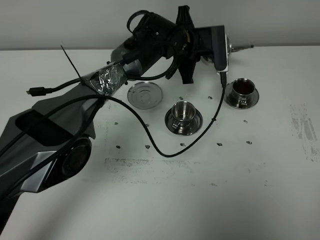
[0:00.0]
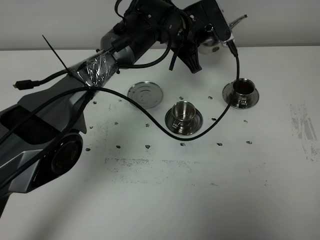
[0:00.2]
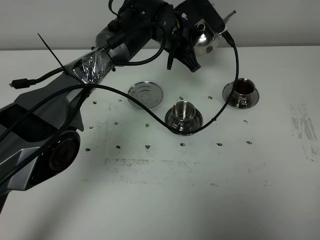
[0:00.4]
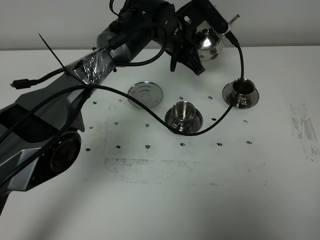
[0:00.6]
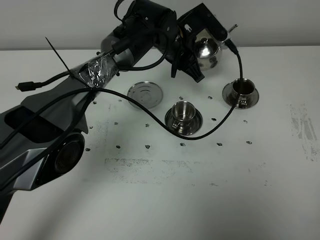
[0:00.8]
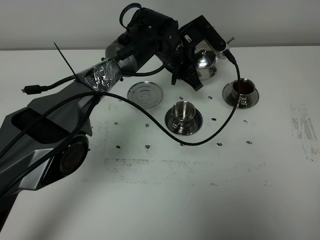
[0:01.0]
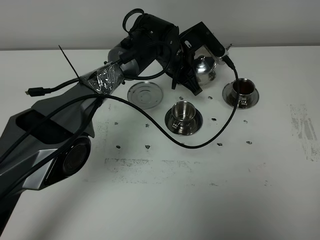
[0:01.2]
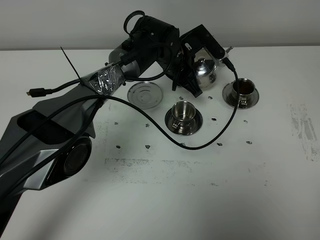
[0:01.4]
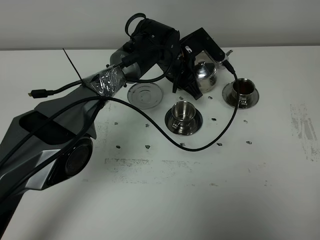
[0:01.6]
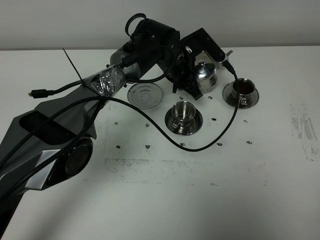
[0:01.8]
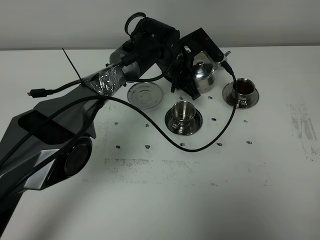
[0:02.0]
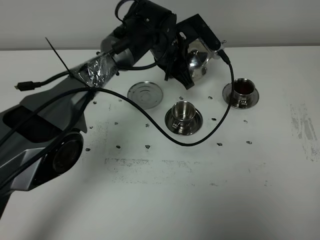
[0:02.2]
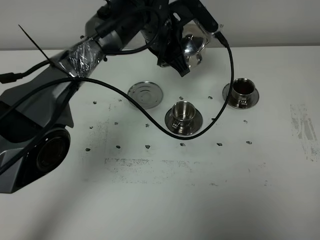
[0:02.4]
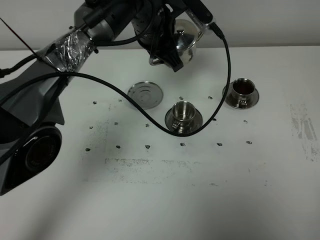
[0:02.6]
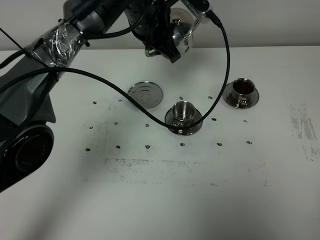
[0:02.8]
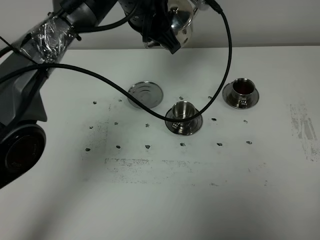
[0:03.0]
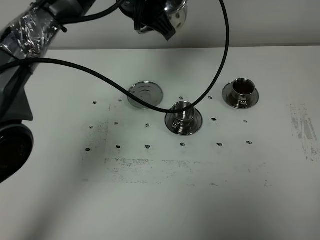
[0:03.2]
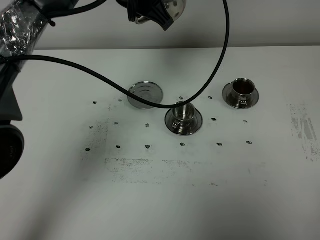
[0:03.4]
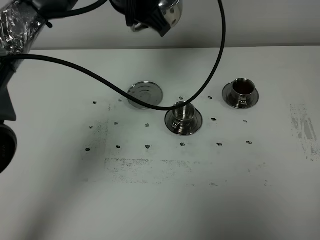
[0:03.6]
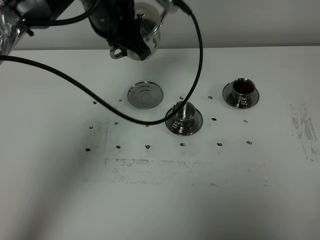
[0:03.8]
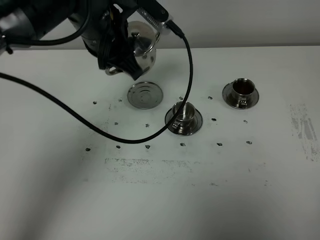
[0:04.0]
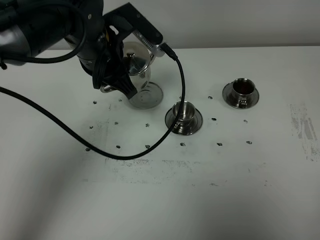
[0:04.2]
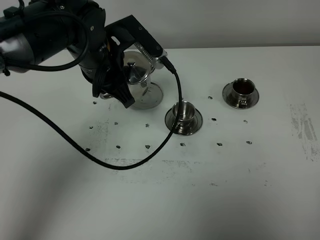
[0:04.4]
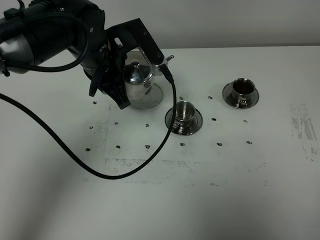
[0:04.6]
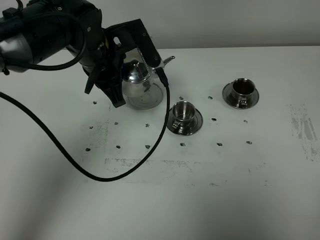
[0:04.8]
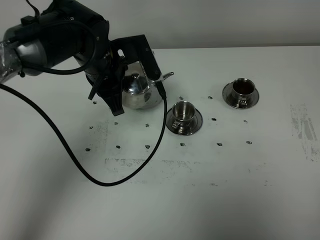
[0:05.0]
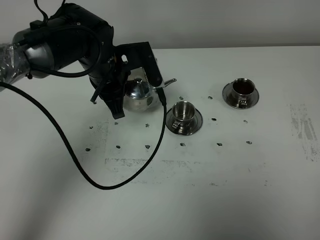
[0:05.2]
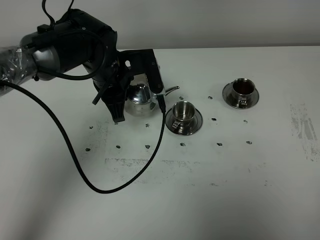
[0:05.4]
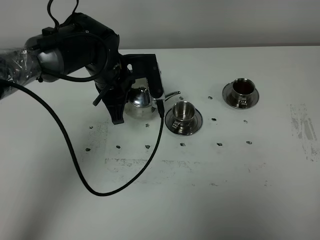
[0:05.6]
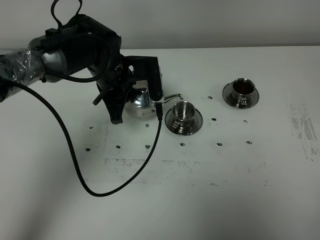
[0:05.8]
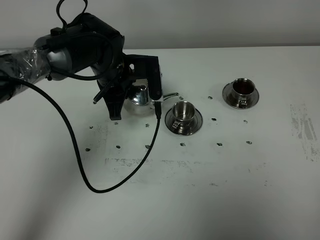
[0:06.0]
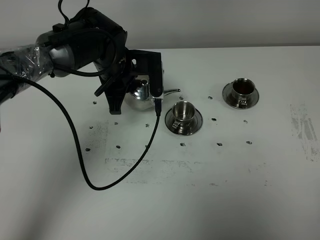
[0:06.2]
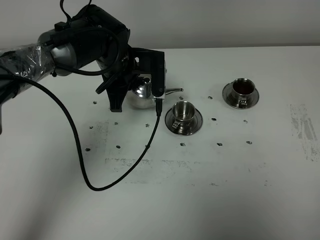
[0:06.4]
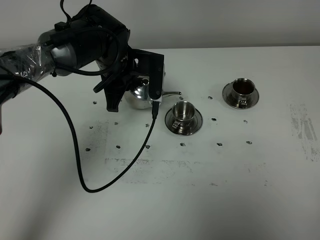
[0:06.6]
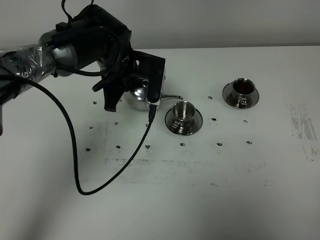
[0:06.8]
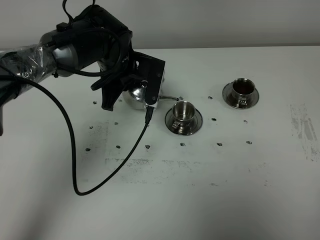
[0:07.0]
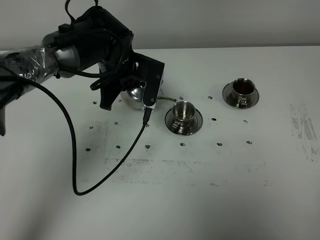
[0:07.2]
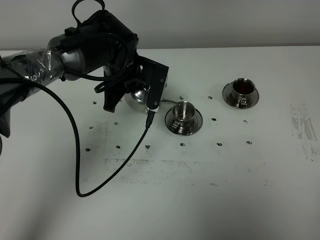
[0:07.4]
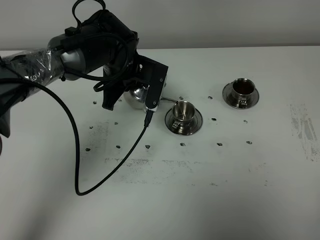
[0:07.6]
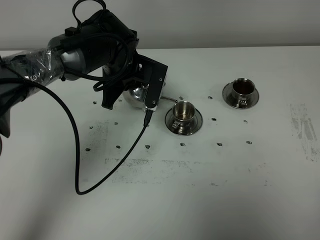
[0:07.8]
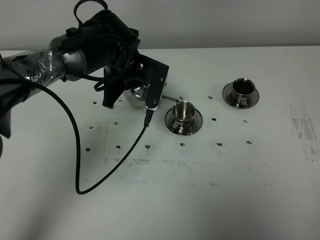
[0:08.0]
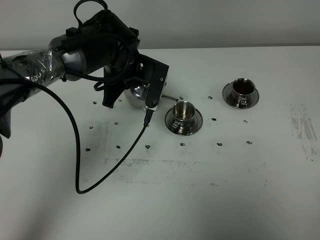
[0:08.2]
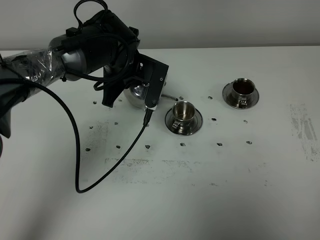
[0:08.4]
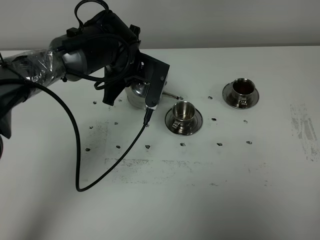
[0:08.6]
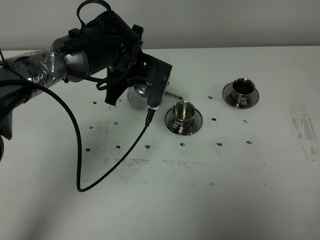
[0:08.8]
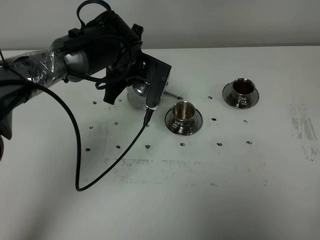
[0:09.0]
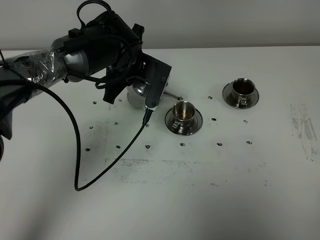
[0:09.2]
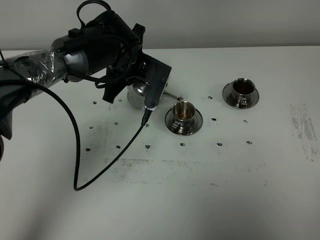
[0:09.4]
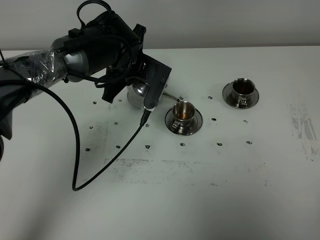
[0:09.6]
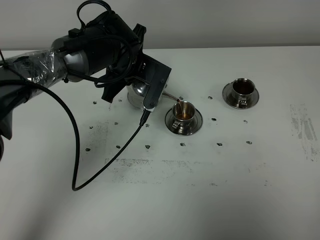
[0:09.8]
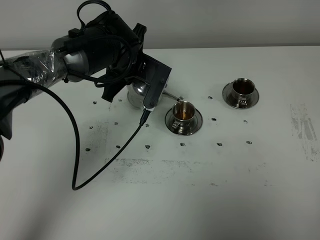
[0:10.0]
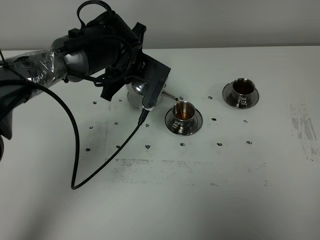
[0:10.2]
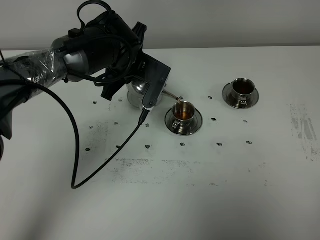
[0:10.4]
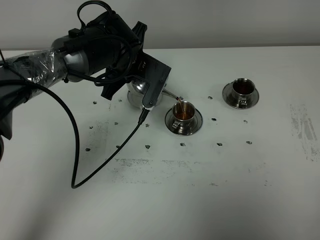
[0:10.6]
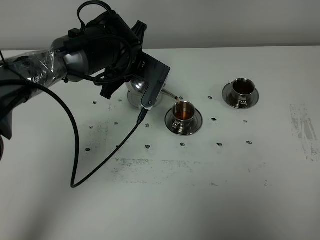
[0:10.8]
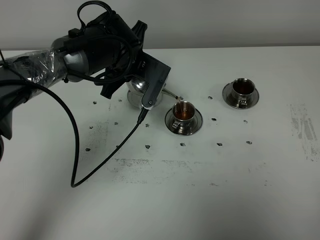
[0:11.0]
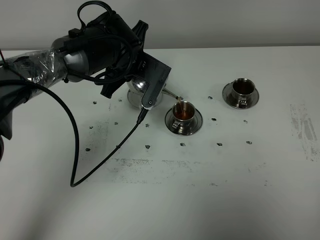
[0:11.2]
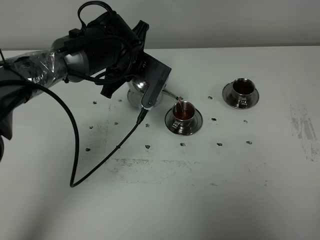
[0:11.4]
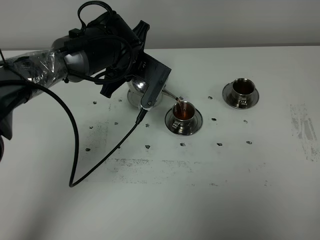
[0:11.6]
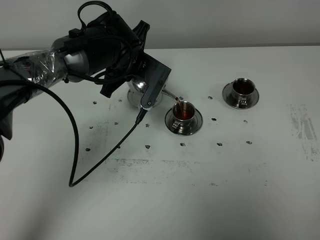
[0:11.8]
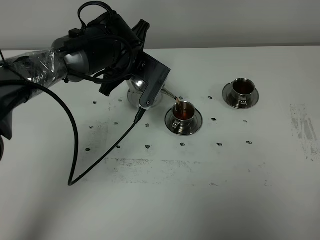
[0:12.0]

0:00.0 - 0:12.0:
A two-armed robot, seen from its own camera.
Task of the whole recording: grasp the stainless steel teapot and pour the tea into the two stainless steel teacups one by one, put the stainless steel teapot back in its original place.
0:01.6 - 0:03.0: The left gripper moves upward, approximately 15 cm.
0:03.0 - 0:04.4: The left gripper goes about 10 cm to the left, backward and downward.
0:04.4 - 0:06.0: The left gripper moves downward, about 5 cm.
0:07.6 - 0:12.0: The grippers make only small movements.

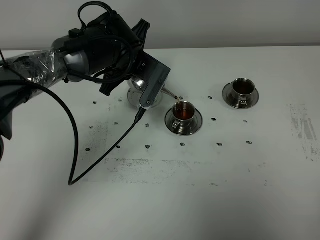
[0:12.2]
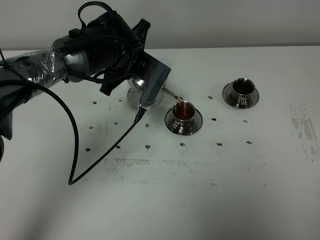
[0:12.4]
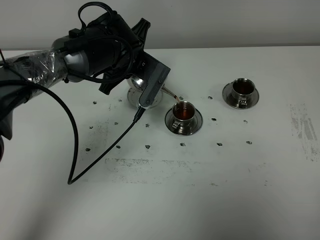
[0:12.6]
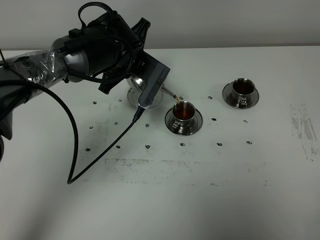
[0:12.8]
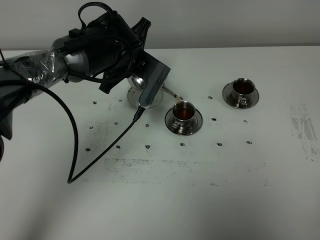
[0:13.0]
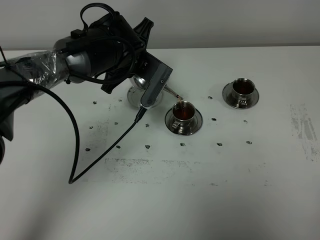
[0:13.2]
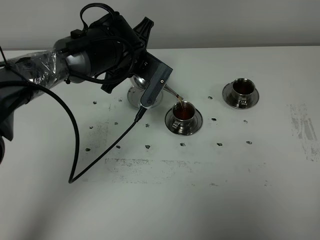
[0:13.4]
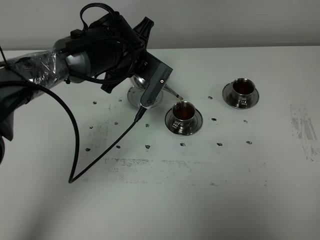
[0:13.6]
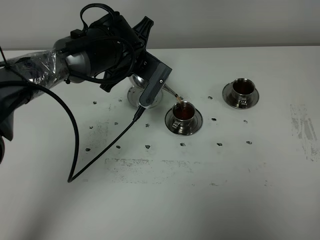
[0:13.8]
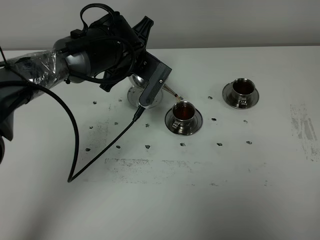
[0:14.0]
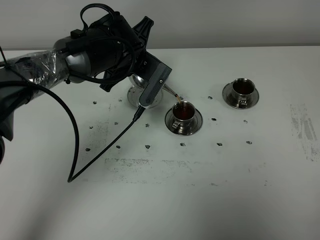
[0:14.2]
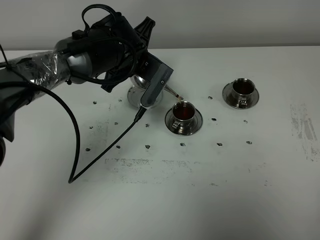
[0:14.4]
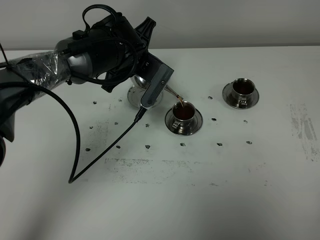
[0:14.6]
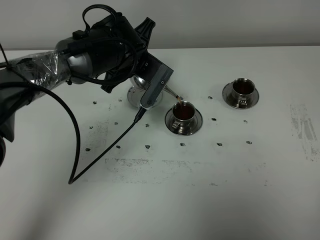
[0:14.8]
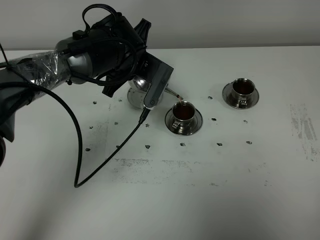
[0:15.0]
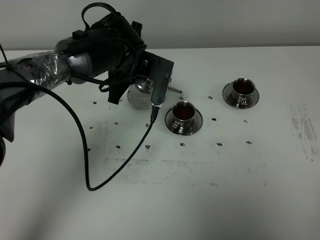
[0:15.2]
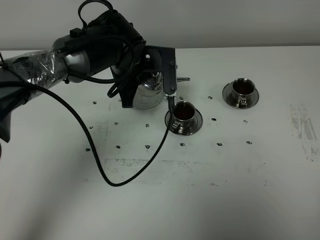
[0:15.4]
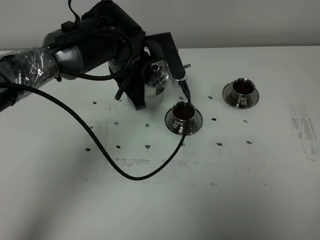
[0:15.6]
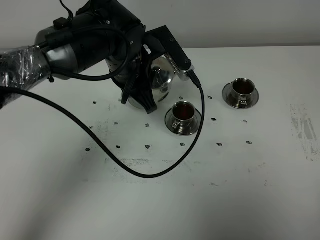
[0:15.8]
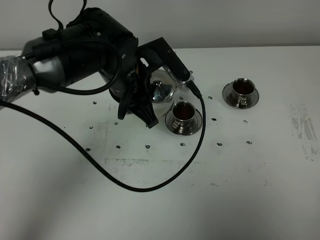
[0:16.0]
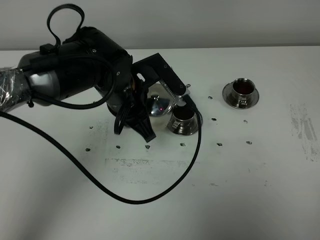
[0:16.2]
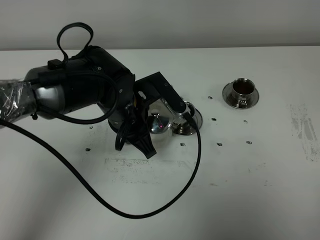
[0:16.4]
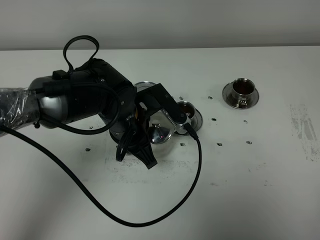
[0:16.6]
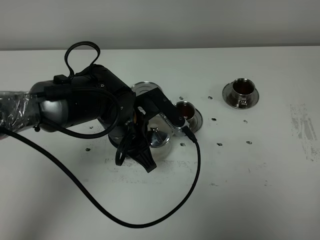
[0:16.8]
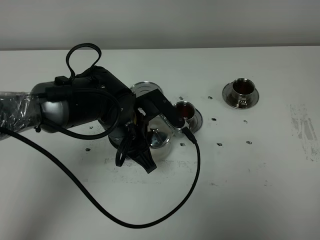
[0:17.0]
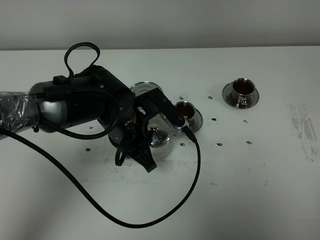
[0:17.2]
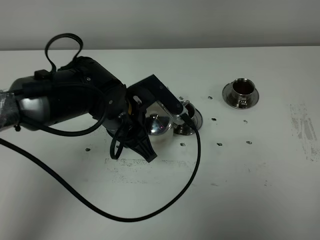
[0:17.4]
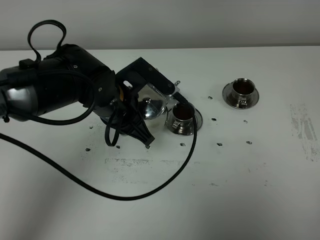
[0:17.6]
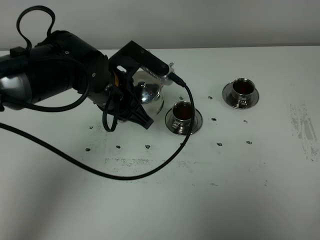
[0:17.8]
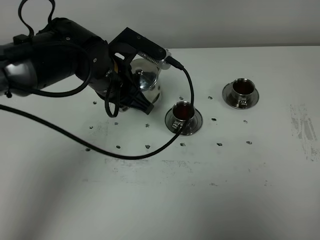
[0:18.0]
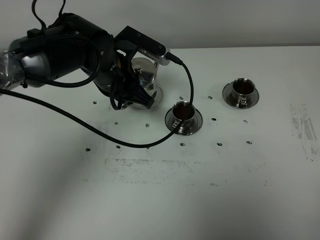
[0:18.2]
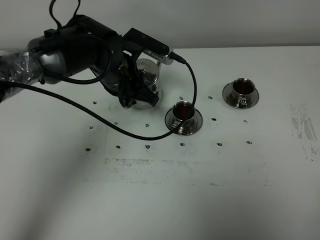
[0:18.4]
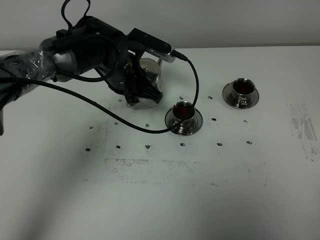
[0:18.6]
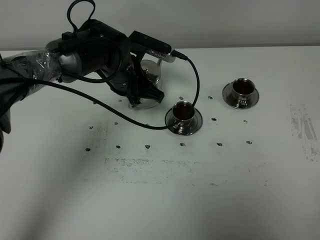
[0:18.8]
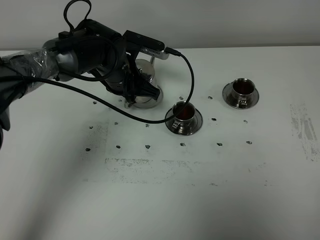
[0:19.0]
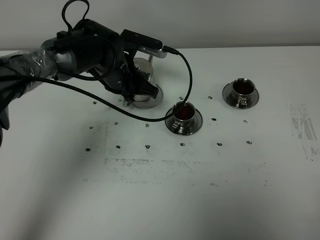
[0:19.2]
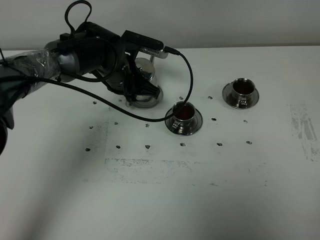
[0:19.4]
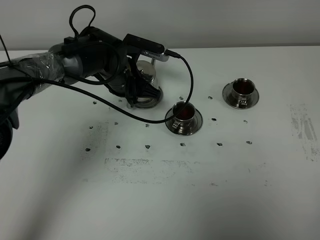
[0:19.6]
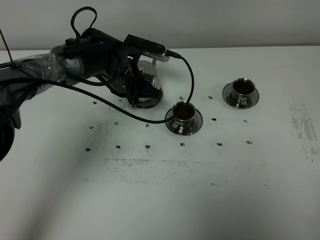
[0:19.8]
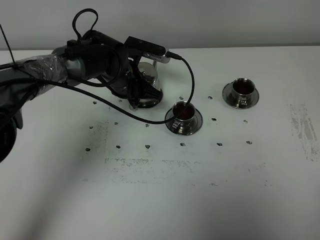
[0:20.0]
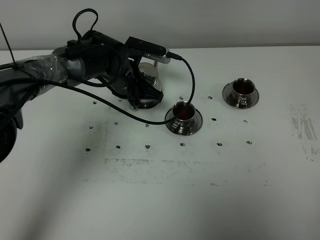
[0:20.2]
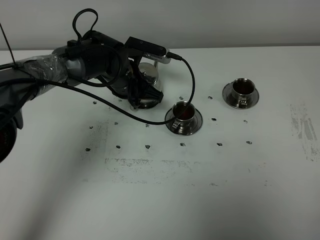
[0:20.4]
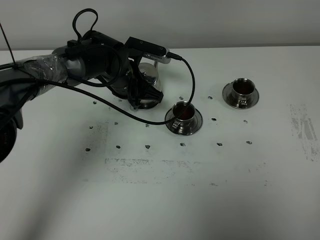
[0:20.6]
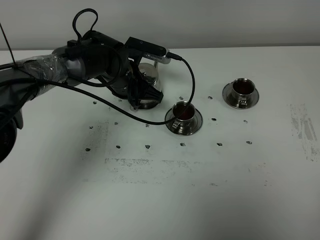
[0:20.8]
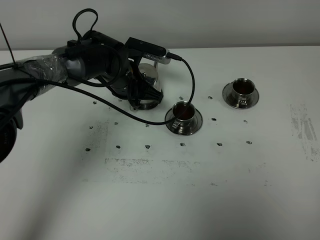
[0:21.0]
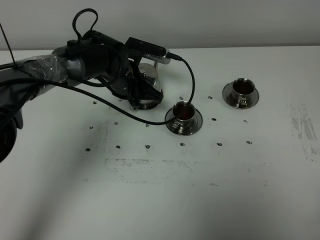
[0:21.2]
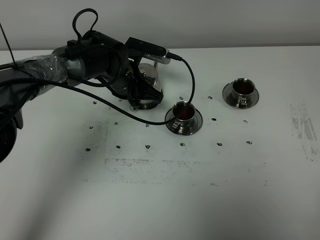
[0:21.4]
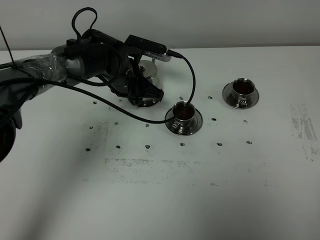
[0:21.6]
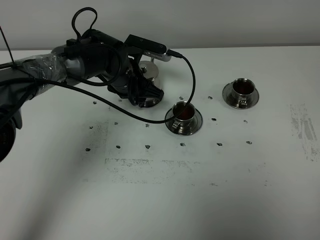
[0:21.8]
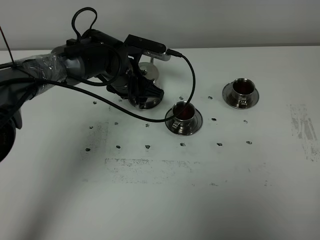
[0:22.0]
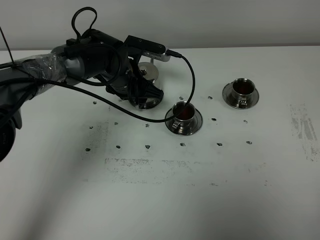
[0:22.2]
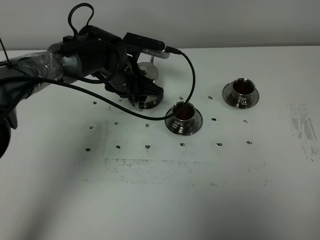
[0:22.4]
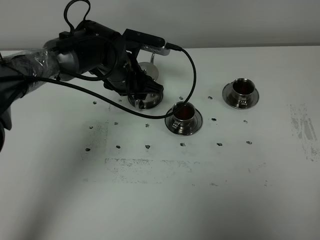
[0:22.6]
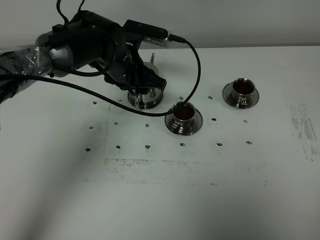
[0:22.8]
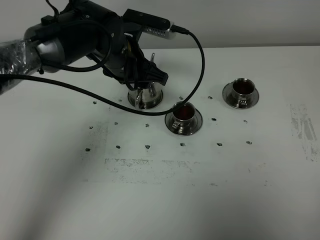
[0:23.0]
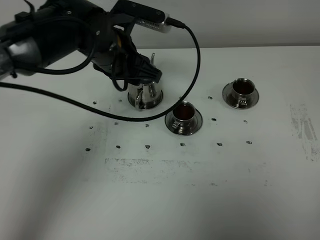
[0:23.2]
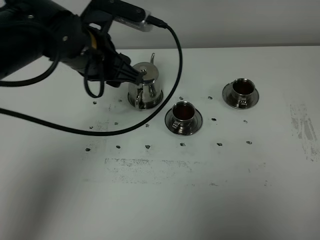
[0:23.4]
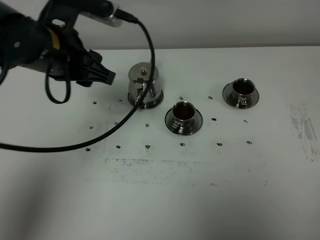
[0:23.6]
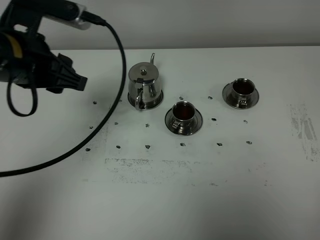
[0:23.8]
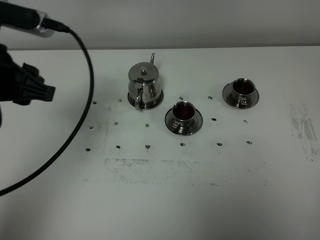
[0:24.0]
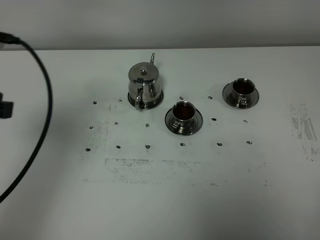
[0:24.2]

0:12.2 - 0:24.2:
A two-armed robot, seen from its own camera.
Task of the whole recording: grasp the stainless steel teapot and pour the tea into the two stainless steel teacups one by one, put the stainless steel teapot back in its original place.
Step, 0:12.2 - 0:15.0: Pour tea into the teacup with the left gripper.
0:12.2 - 0:13.8: Both grippers stay put.
0:13.8 - 0:15.2: The grippers move only a little.
0:15.2 - 0:16.6: The left gripper shifts approximately 10 cm backward.
0:16.6 - 0:18.2: The left gripper travels forward by some 5 cm.
0:18.2 - 0:19.8: The left gripper moves downward and forward, about 10 cm.
0:19.8 - 0:21.2: Both grippers stay about where they are.
0:21.2 - 0:22.6: The left gripper opens its fingers.
0:22.6 - 0:24.2: The left gripper is displaced backward, to the left and upward by approximately 35 cm.
